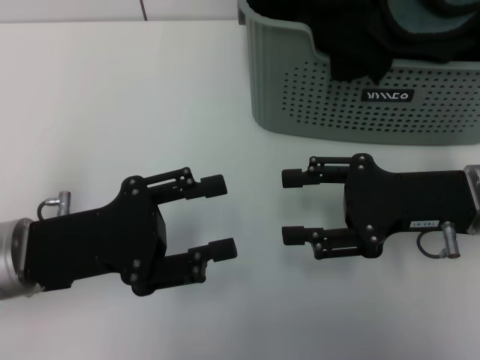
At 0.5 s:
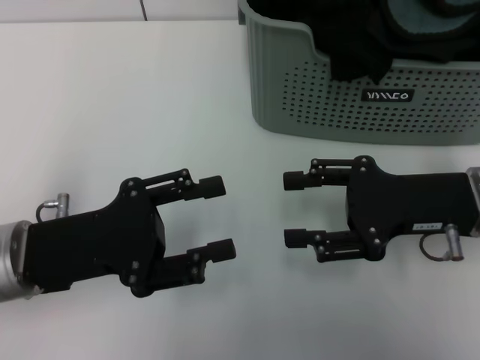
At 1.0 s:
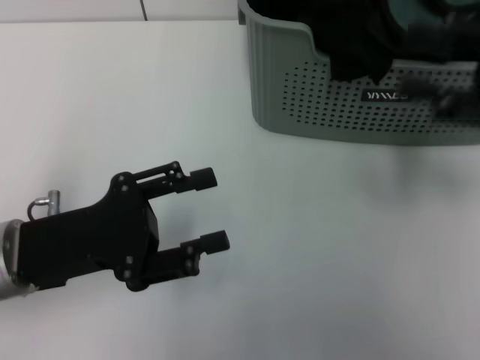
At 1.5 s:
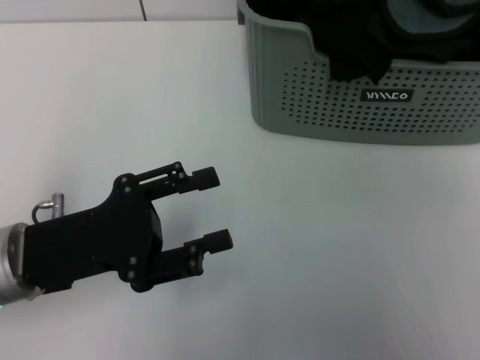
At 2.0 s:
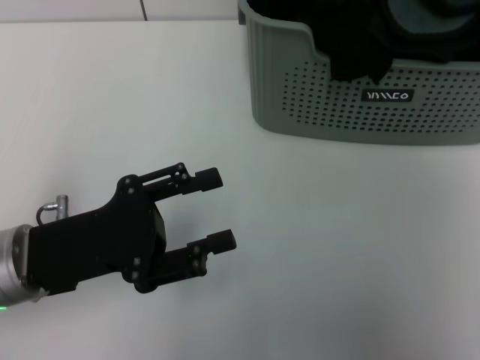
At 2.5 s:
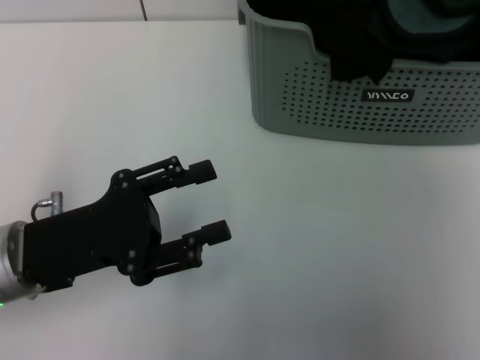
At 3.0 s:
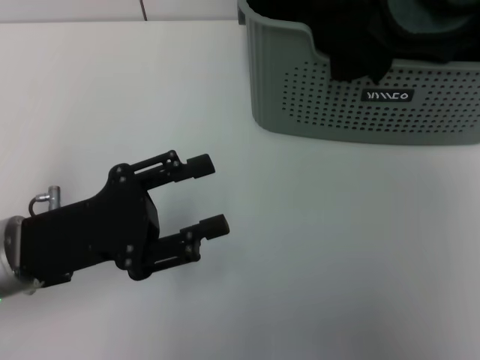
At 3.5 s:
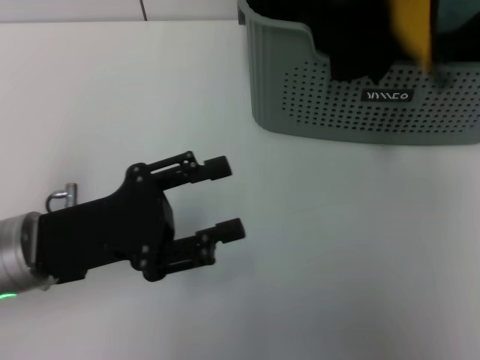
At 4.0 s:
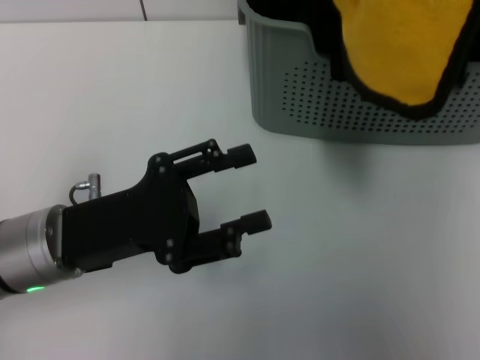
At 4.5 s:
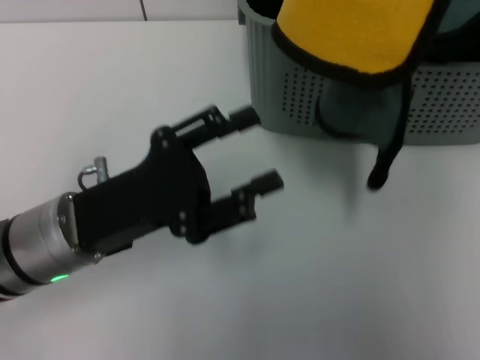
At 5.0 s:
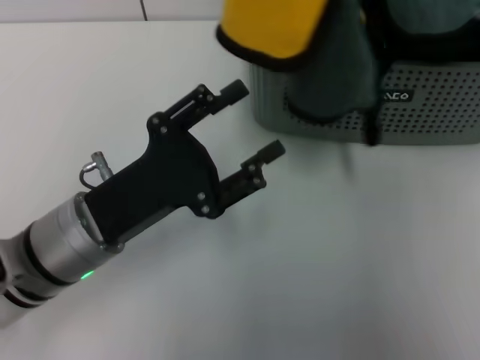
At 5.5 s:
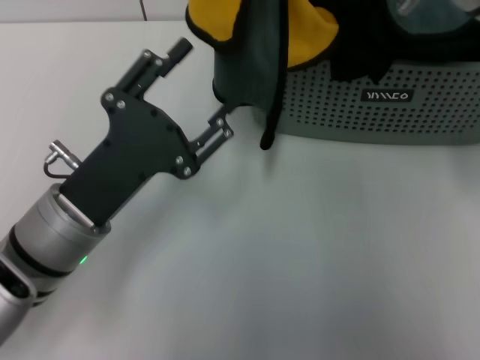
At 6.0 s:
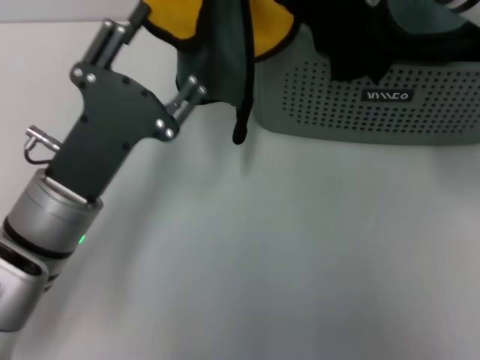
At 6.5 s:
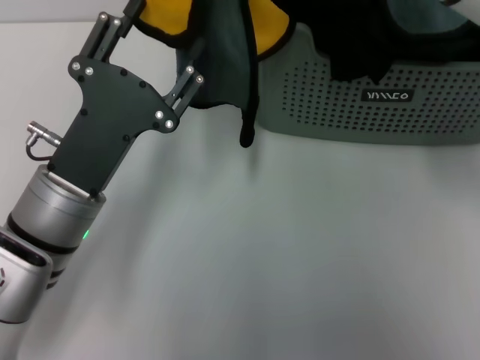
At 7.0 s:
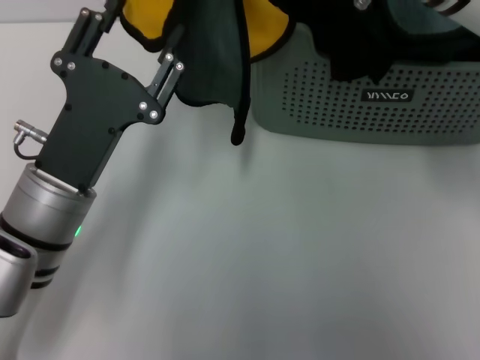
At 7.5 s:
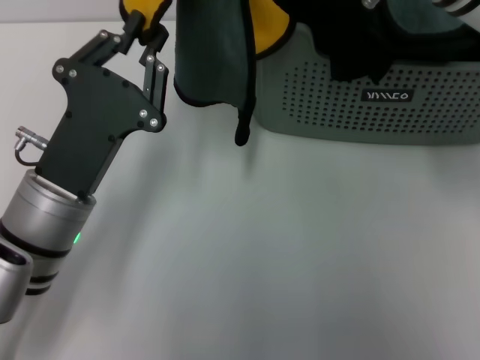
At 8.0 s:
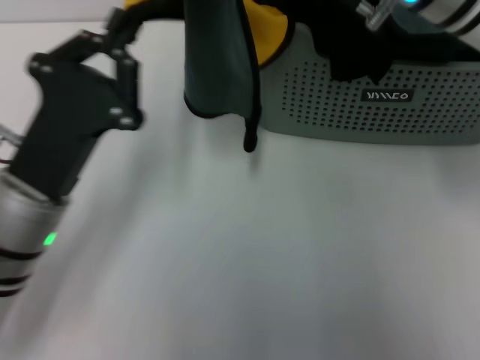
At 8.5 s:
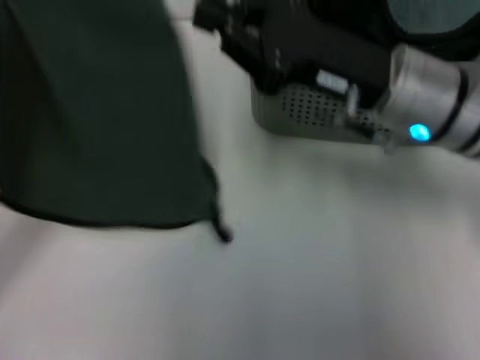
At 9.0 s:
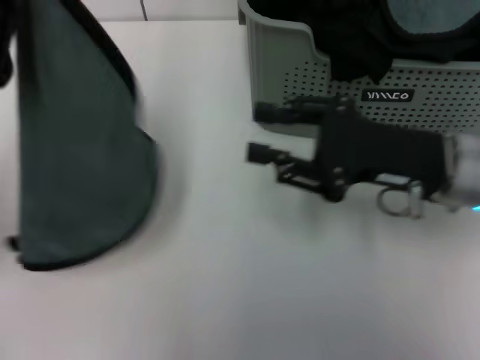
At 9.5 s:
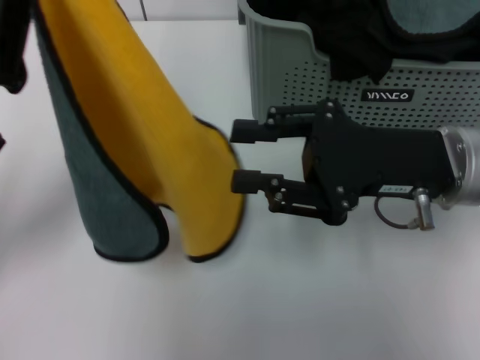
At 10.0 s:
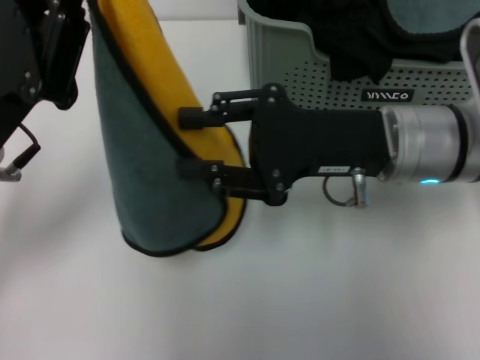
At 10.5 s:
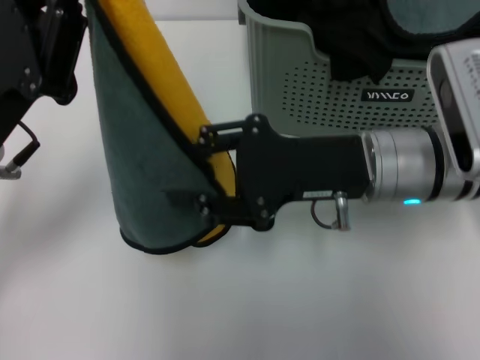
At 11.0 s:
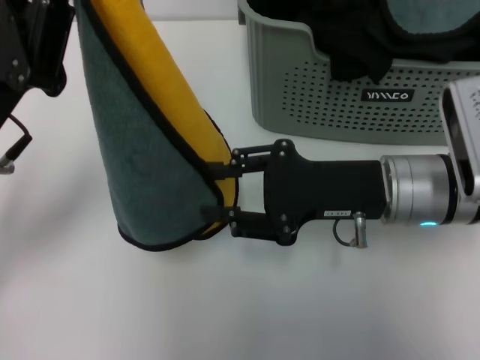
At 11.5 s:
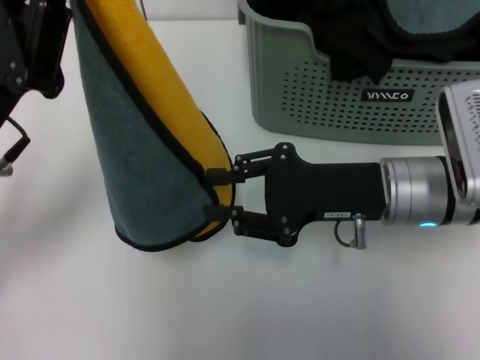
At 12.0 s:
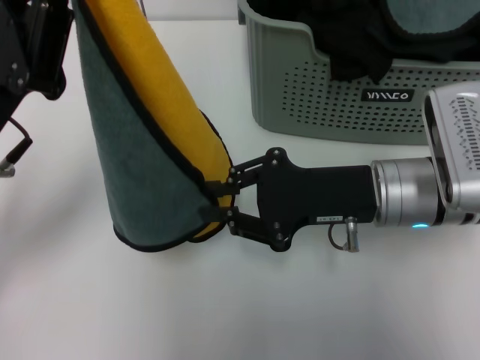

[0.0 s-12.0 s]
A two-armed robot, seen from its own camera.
Task of the whole recording: pick up the towel from the storage box and lay it flat on the table.
Step, 0.0 to 3.0 s: Pick up a towel with the right gripper.
Step, 3.5 to 7.5 s: Spread the towel flat with the right gripper.
0.0 to 2.0 s: The right gripper heads forward, upward and to the right, covering some 15 cm.
2.0 to 4.0 s: The right gripper goes approximately 10 cm upward and backward, and closes its fingers.
4.0 to 6.0 s: The right gripper heads to the left, covering approximately 15 cm.
6.0 to 8.0 s: The left gripper closes.
8.0 to 10.0 s: The right gripper shifts some 10 cm downward and backward, and opens up, while the left gripper heads upward, covering roughly 5 cm.
10.0 to 12.0 s: The right gripper moves roughly 5 cm.

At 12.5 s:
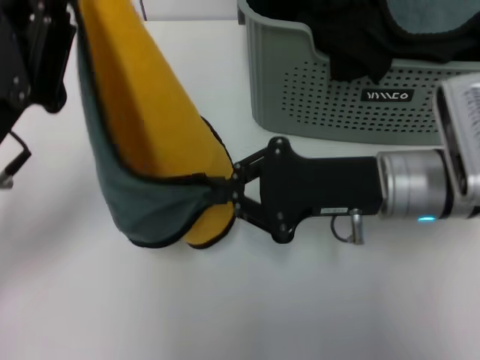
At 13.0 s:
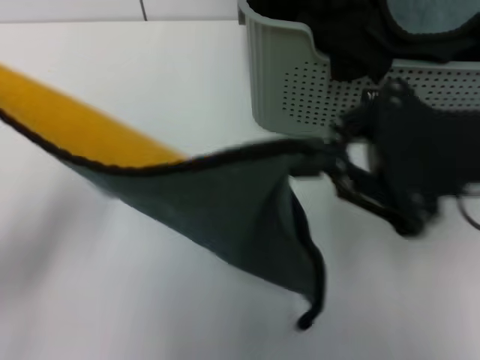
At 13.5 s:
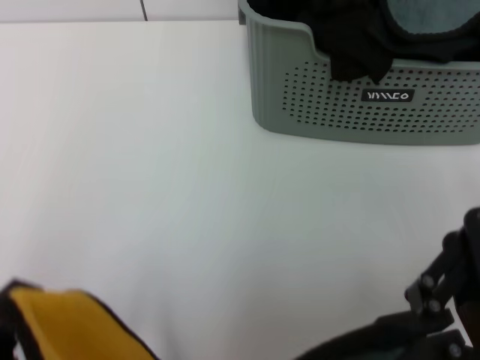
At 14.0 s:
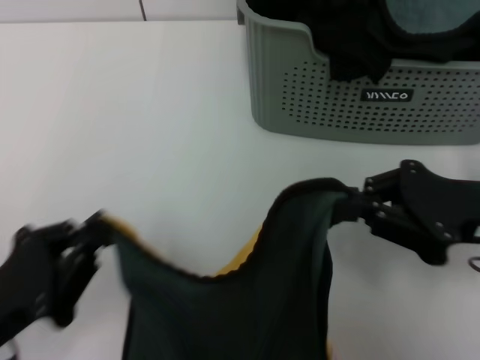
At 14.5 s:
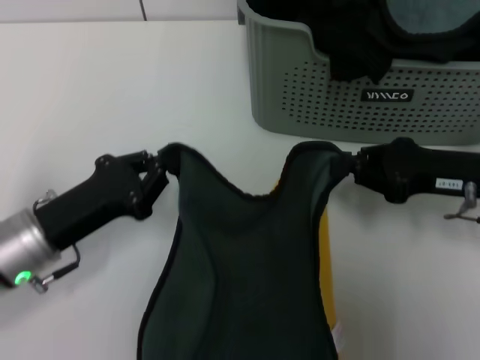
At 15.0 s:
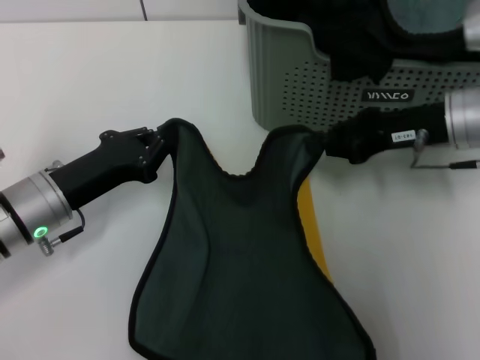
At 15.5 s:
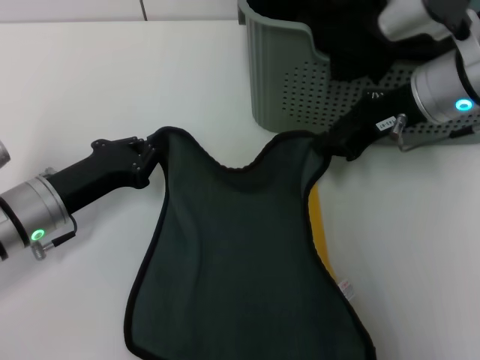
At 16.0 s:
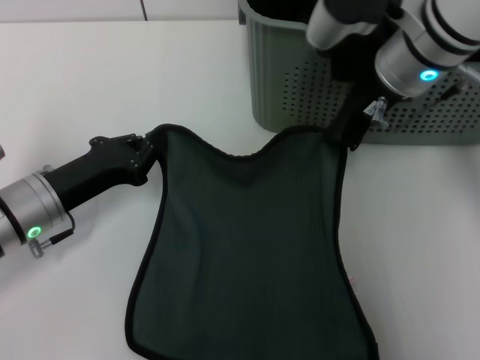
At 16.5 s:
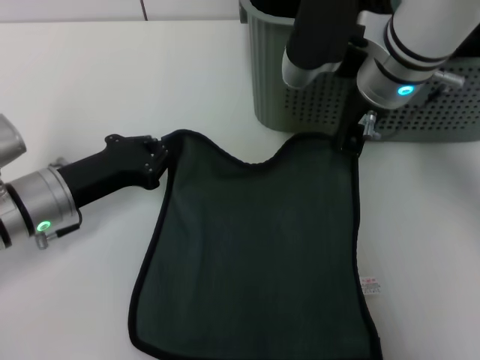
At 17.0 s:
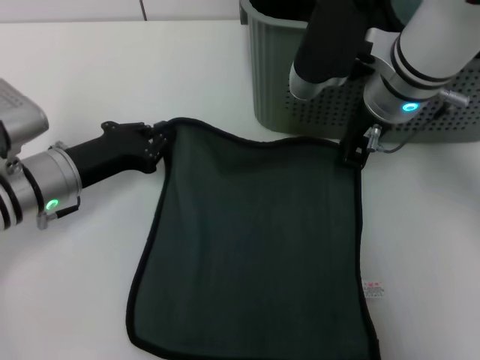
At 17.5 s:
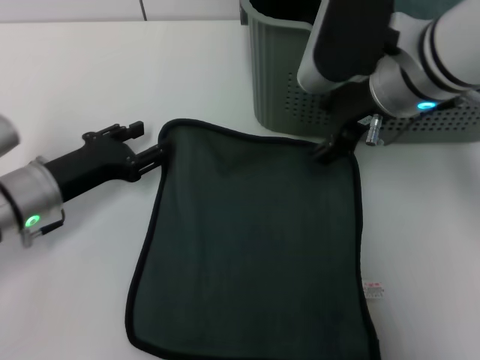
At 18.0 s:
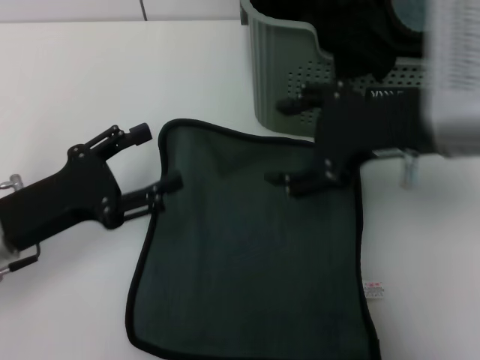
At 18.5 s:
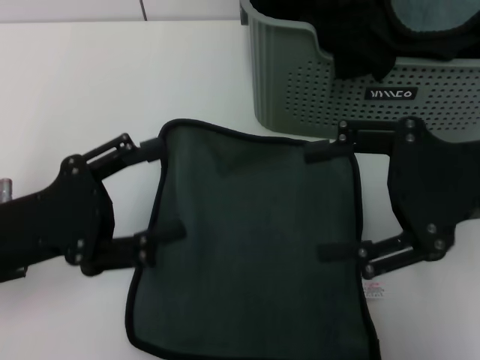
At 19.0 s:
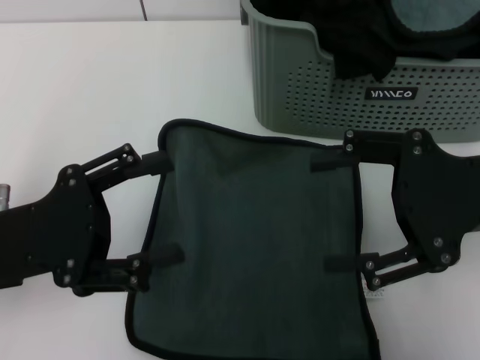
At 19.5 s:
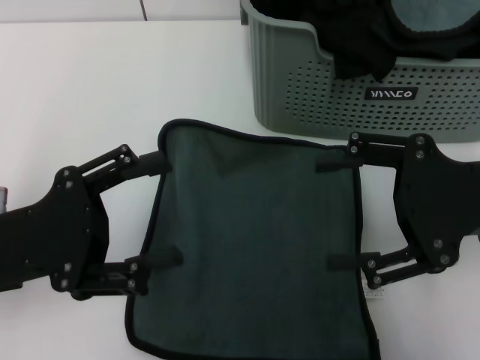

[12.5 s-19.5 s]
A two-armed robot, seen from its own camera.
Task of the whole recording: pick up the towel from the storage box and lay it flat on the table.
Step, 12.5 to 17.0 s: Spread the towel flat with the left gripper.
12.5 to 14.5 s: The right gripper goes roughly 10 cm to the right, and travels backward and back again, roughly 10 cm each way. Meanwhile the left gripper shifts some 10 cm downward, and goes backward and returns, roughly 20 cm each way.
14.5 to 16.0 s: The right gripper shifts about 20 cm to the left, upward and forward, while the left gripper changes place by about 5 cm.
16.0 to 17.5 s: The right gripper opens, while the left gripper opens its fingers.
17.5 to 19.5 s: The left gripper shifts about 10 cm backward and upward, and opens up, while the right gripper shifts roughly 15 cm to the right and backward, and opens.

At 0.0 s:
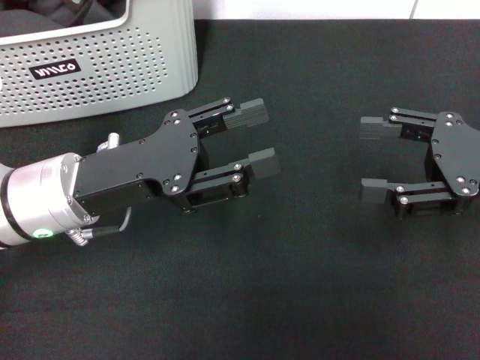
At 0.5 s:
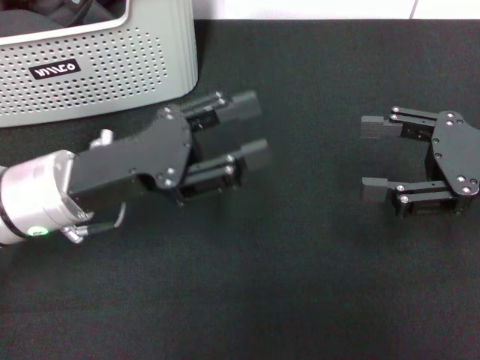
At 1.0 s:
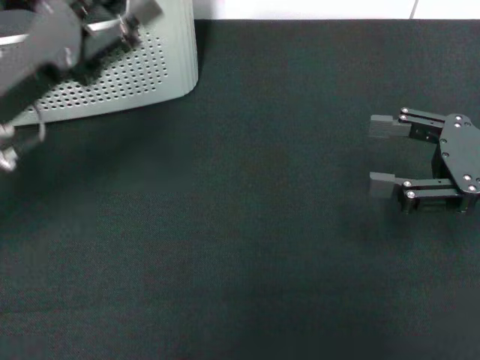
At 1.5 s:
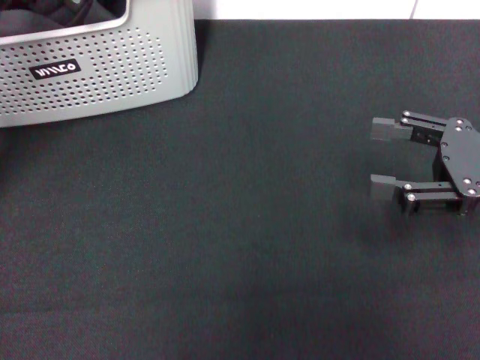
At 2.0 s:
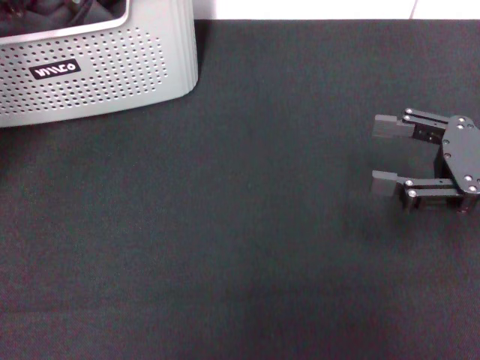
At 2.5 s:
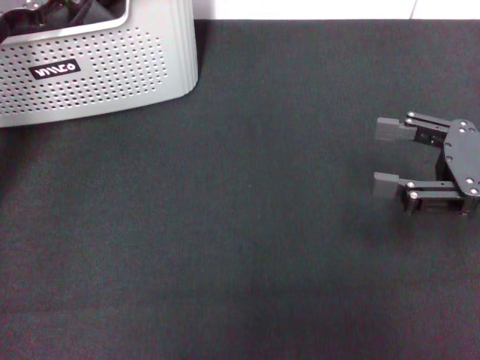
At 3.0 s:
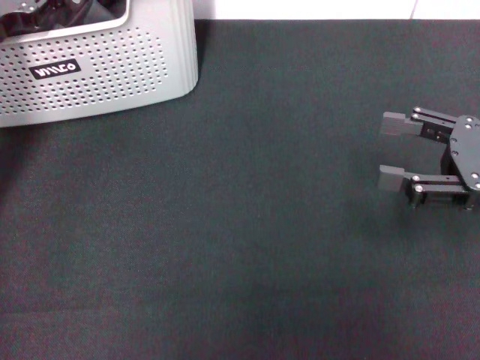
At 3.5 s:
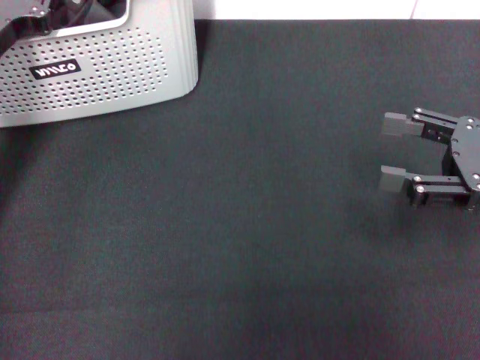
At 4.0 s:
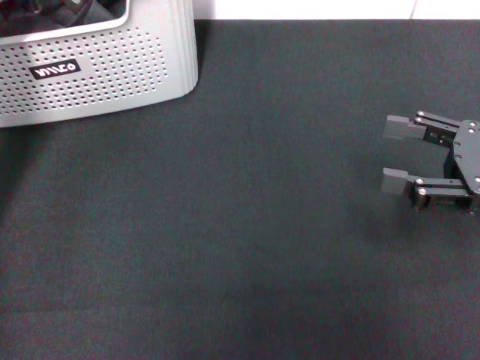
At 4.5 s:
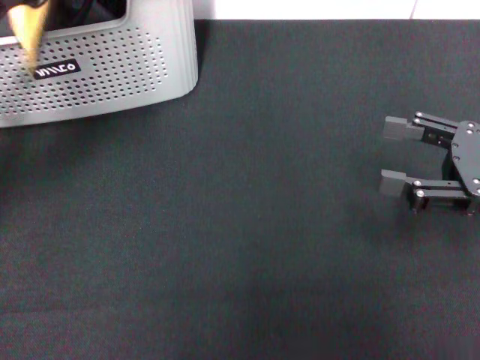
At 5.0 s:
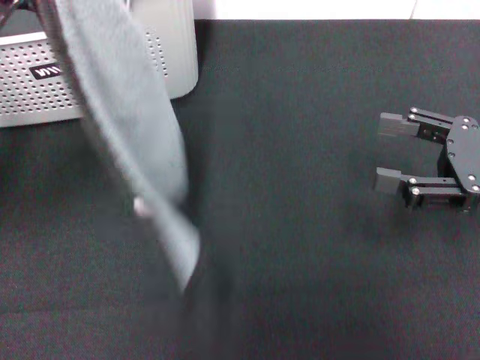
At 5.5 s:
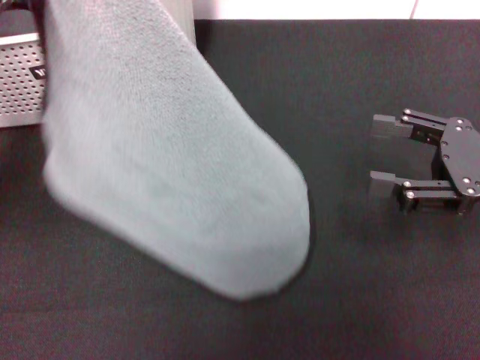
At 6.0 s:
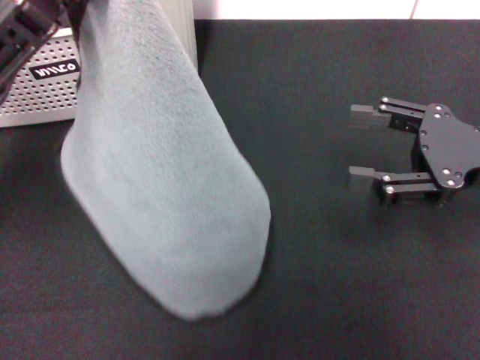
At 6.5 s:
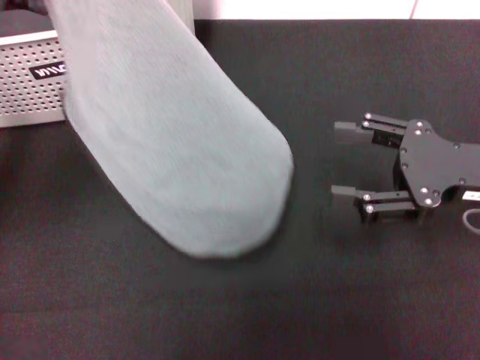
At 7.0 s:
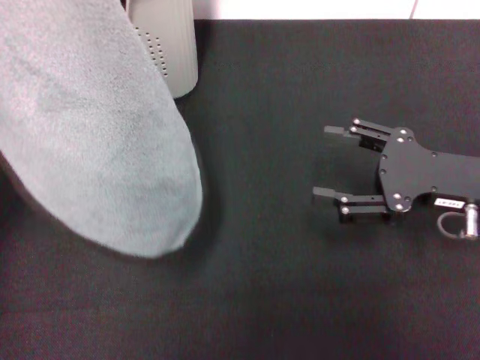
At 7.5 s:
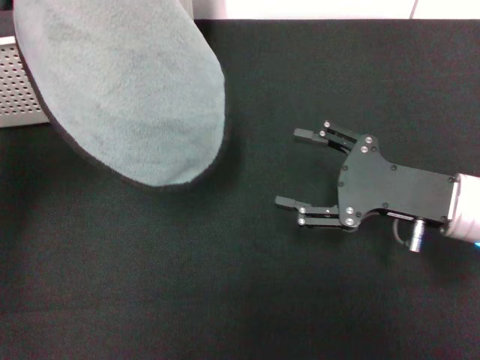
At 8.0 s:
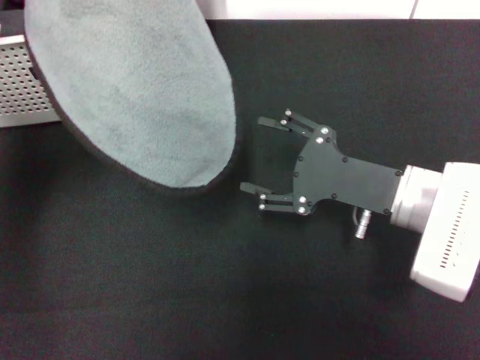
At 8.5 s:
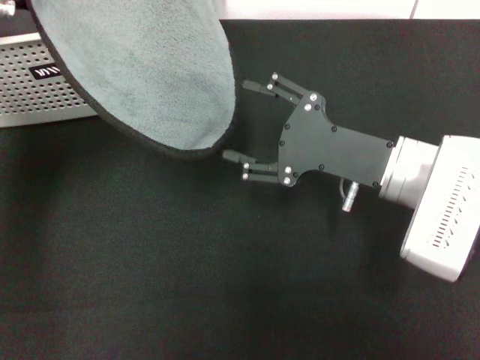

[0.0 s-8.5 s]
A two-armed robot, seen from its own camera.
Task of the whole recording: pick up the towel from the storage box and lay it flat on the black tablecloth.
Step, 0.0 to 3.5 s: Pick up a towel with the left gripper.
0.0 to 2.0 s: The left gripper heads to the left and forward, covering approximately 15 cm.
2.0 to 4.0 s: The left gripper closes up.
4.0 to 6.5 s: The left gripper is displaced backward and upward by about 10 cm.
6.5 to 8.5 s: The right gripper moves to the left, approximately 10 cm, while the left gripper goes roughly 5 cm forward.
